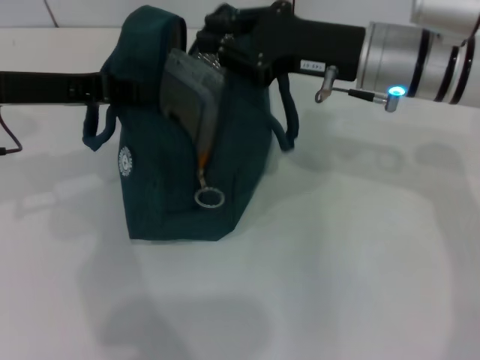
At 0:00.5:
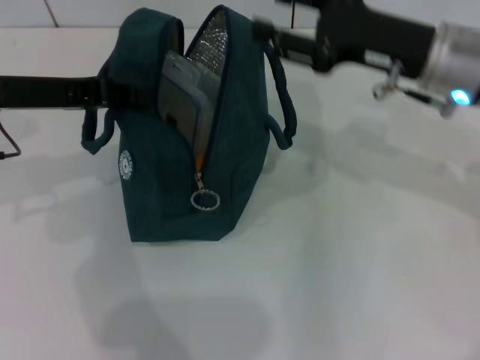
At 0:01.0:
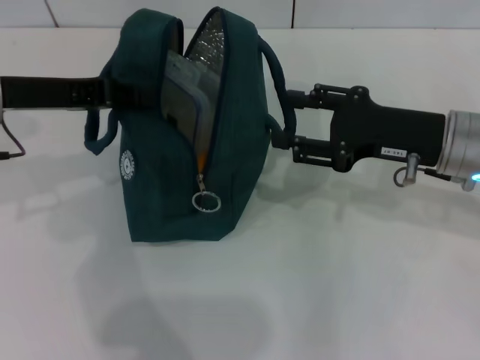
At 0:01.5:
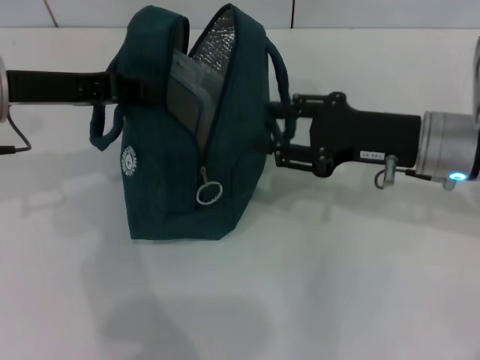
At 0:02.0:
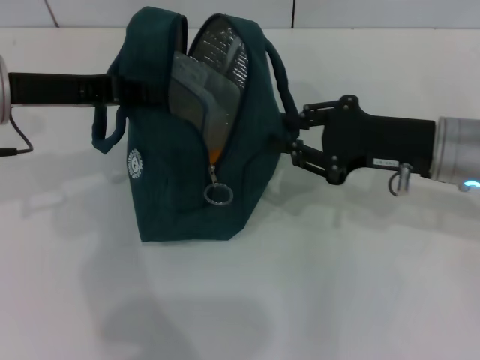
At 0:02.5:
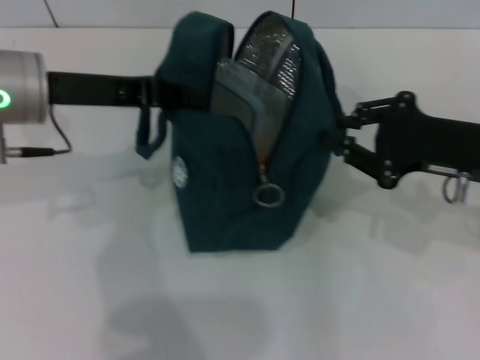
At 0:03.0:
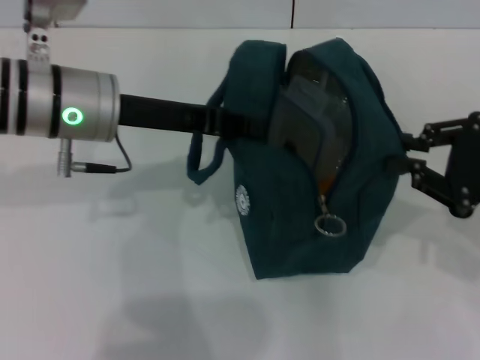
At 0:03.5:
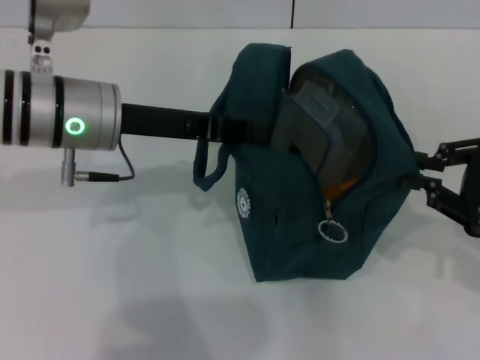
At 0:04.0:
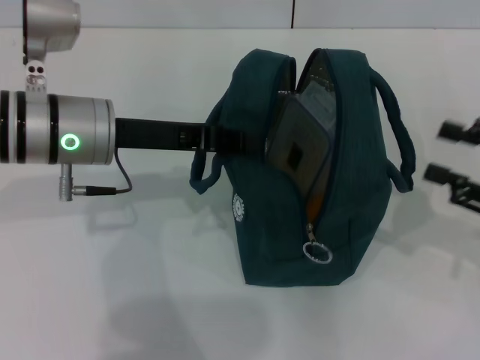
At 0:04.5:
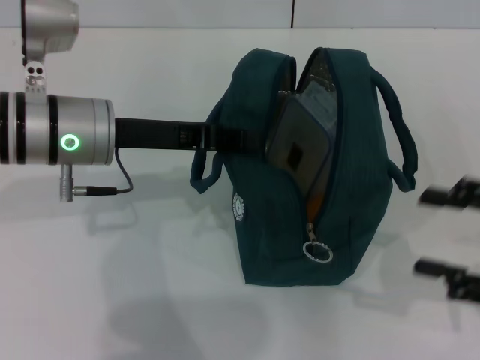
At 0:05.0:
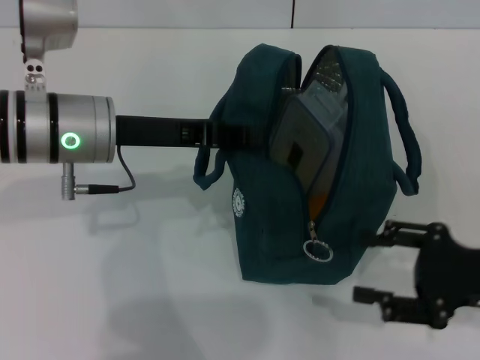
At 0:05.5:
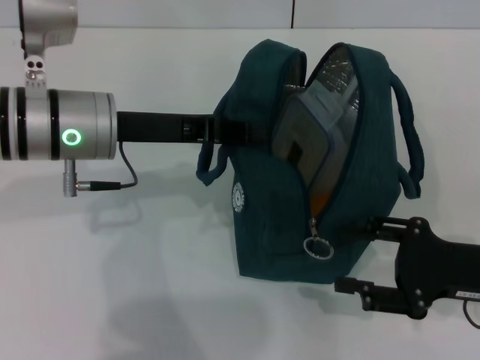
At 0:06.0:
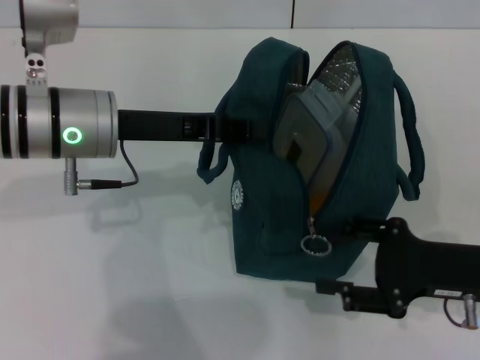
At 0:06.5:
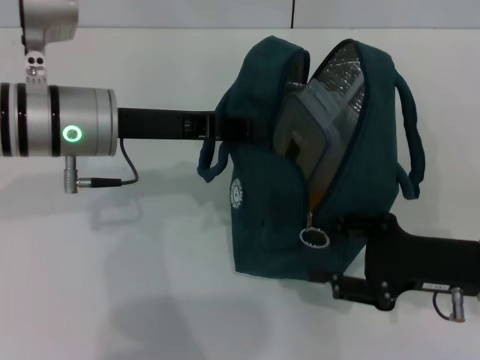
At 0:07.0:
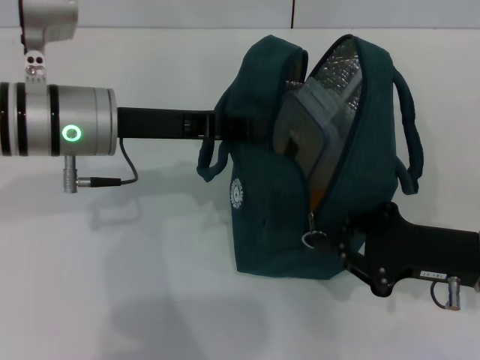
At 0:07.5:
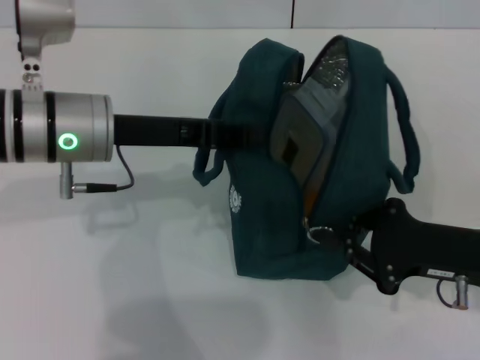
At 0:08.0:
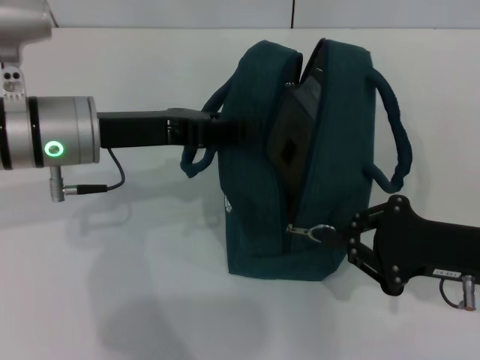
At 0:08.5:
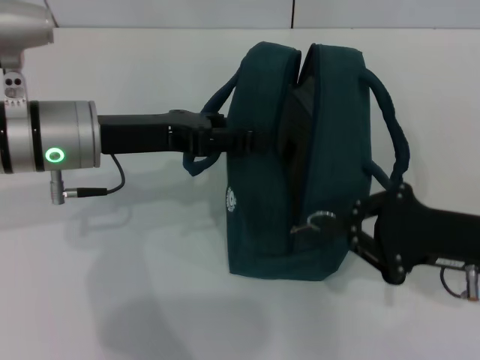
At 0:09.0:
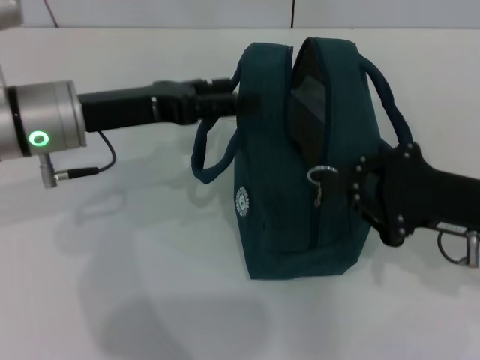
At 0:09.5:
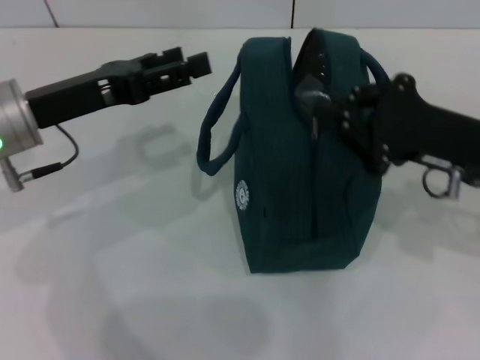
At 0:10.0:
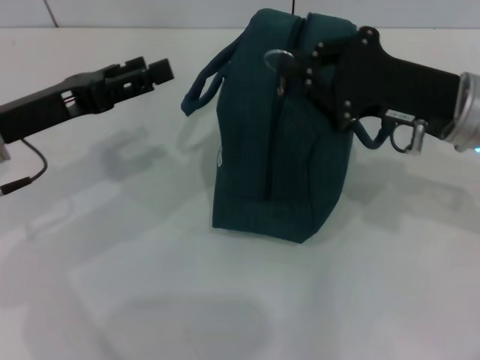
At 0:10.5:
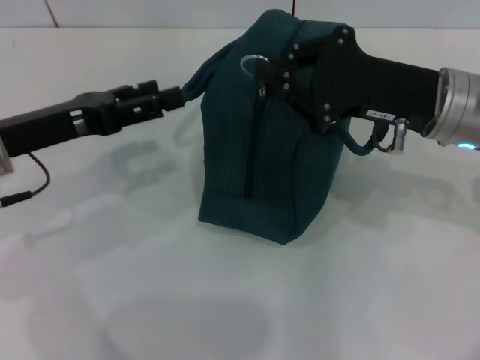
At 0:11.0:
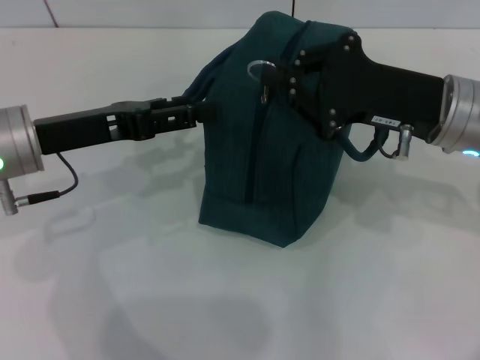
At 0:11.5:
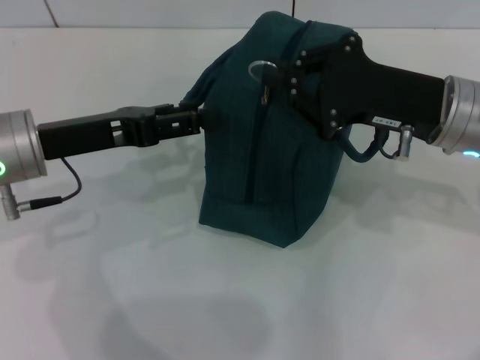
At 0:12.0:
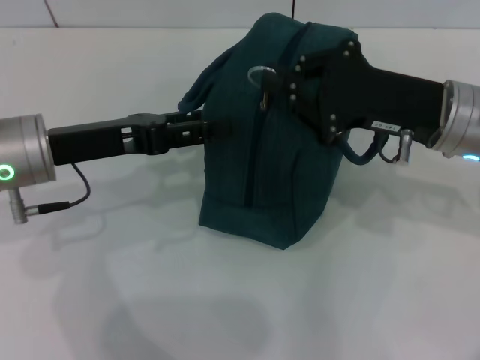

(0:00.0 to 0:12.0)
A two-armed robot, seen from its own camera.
Step, 0:00.5 - 0:04.0: Hold the lunch bag with your right hand.
Step, 0:04.5 - 0:08.5: Hold the lunch bag with your left hand.
0:00.0 - 0:02.0: The right gripper goes some 10 cm to the right and backward, and opens, then closes once more.
0:02.0 - 0:04.0: The left gripper shifts some 5 cm to the right. The right gripper travels to the right and backward by approximately 15 cm.
0:04.0 - 0:06.0: The right gripper goes some 10 cm to the left and downward, and opens.
0:06.0 - 0:08.0: The right gripper closes up.
0:08.0 - 0:10.0: The right gripper goes approximately 10 cm forward and upward; the left gripper travels to the left by approximately 5 cm, and opens its fingers.
0:10.0 - 0:12.0: The grippers move only a little.

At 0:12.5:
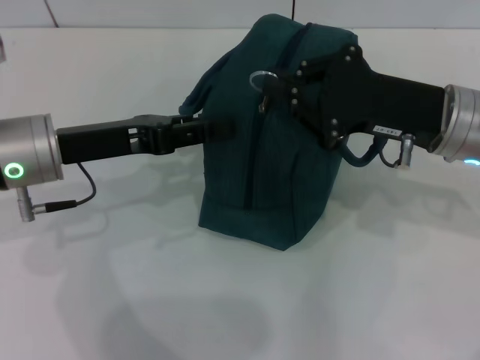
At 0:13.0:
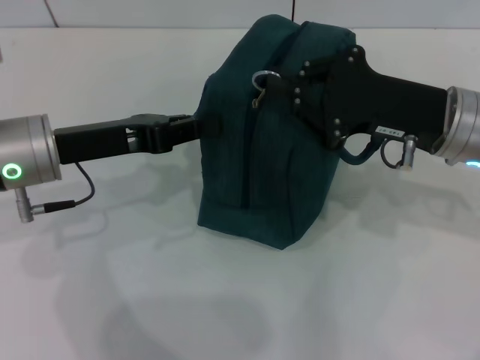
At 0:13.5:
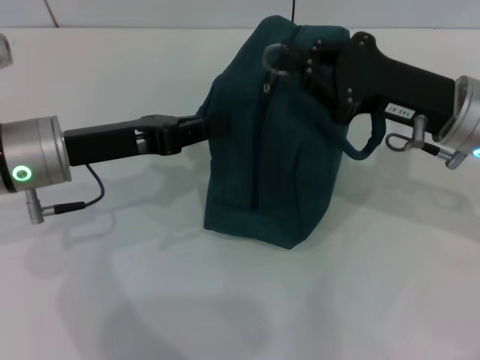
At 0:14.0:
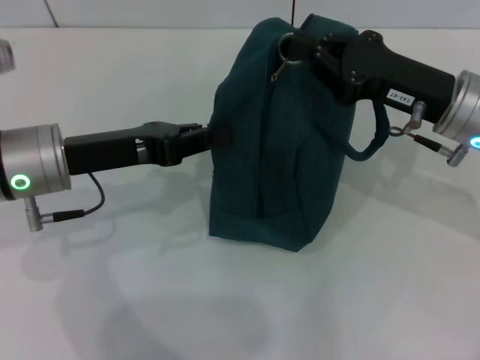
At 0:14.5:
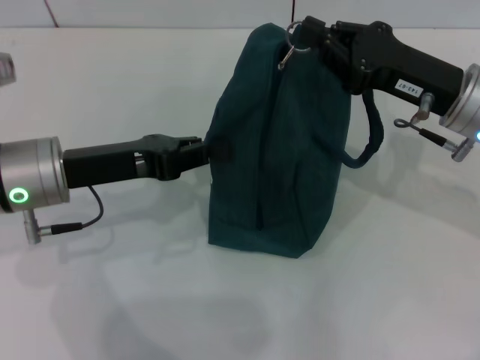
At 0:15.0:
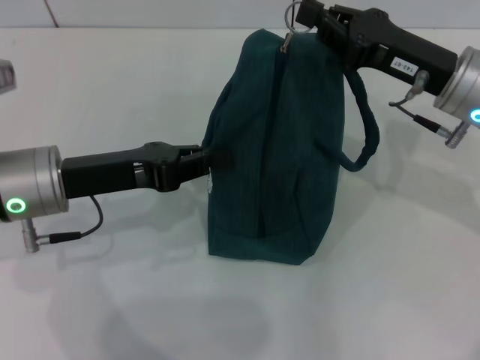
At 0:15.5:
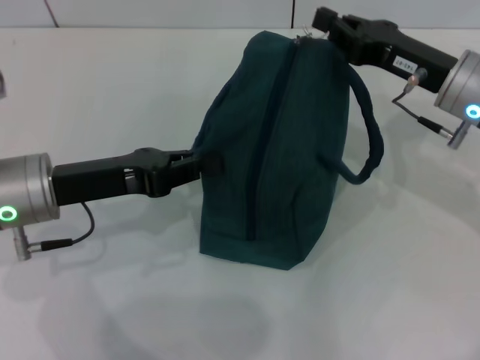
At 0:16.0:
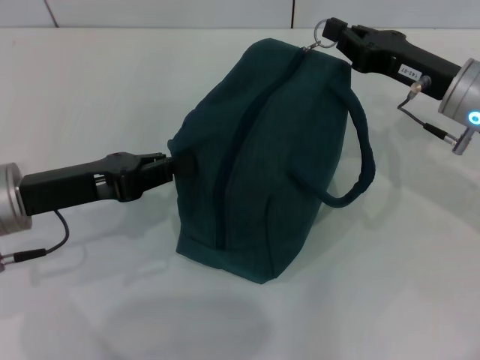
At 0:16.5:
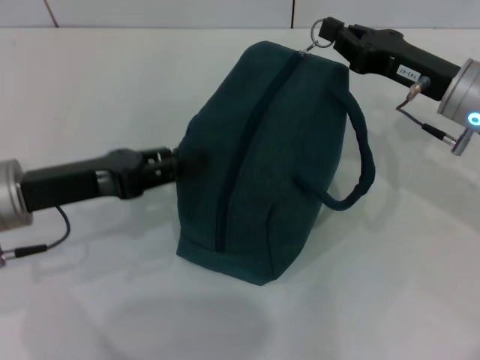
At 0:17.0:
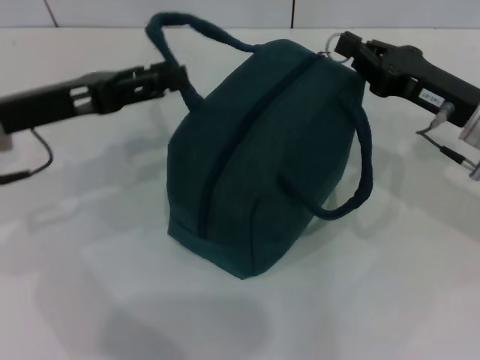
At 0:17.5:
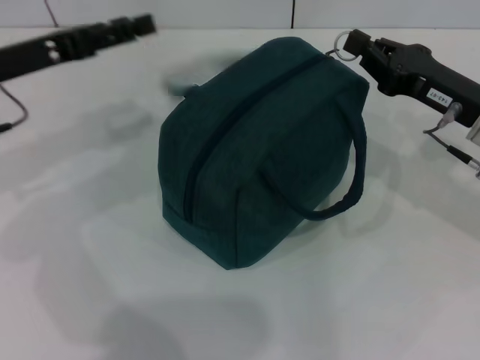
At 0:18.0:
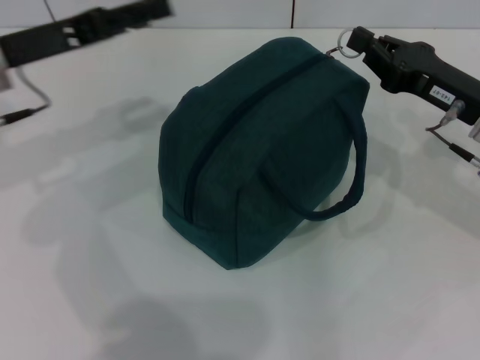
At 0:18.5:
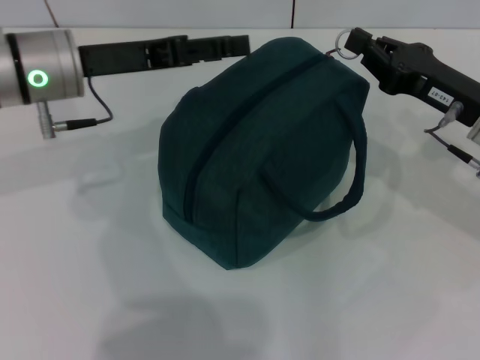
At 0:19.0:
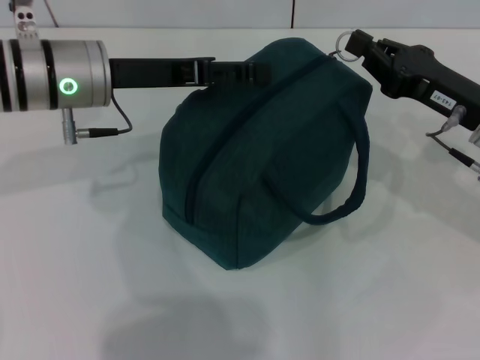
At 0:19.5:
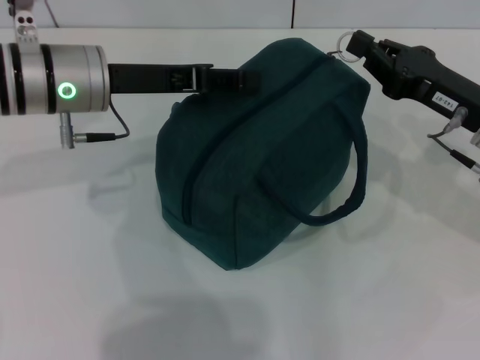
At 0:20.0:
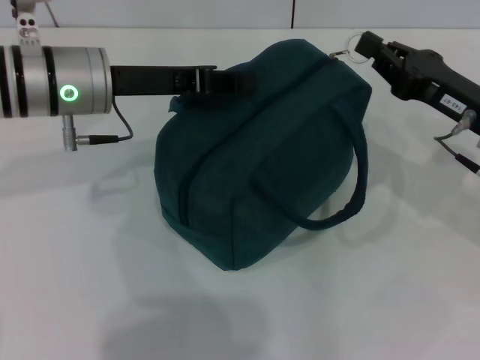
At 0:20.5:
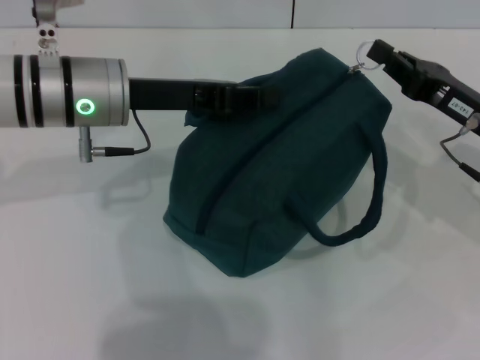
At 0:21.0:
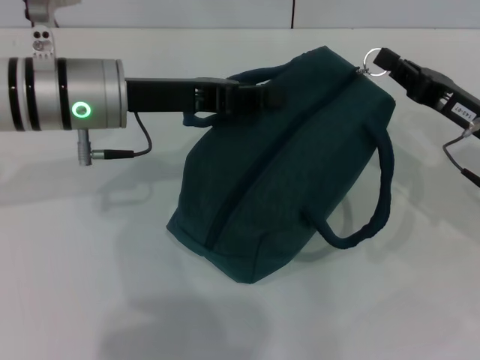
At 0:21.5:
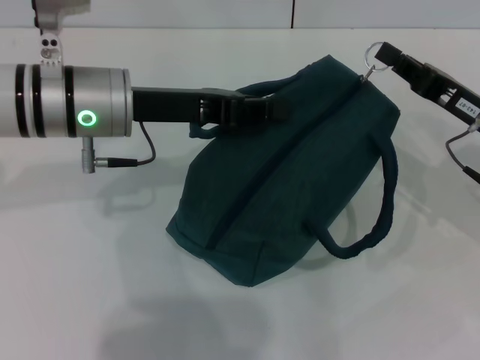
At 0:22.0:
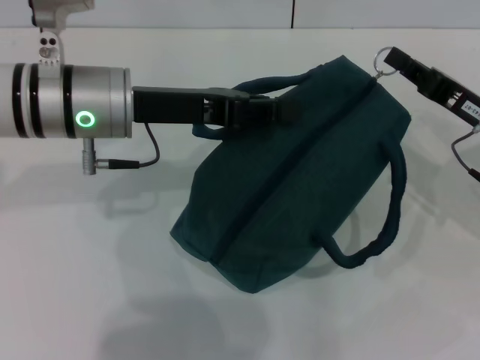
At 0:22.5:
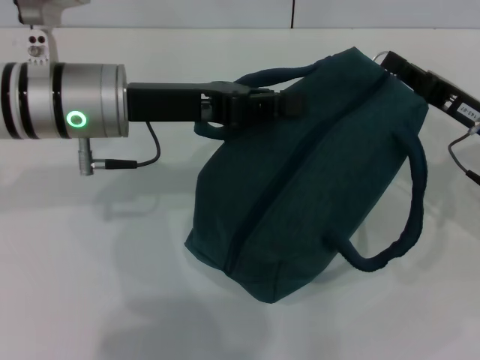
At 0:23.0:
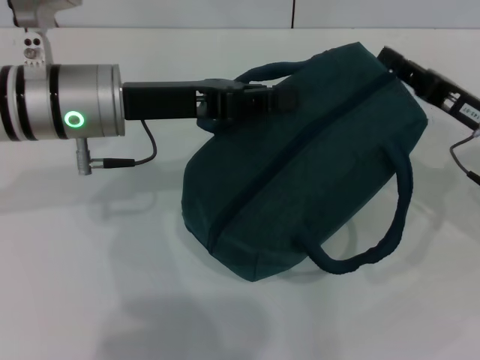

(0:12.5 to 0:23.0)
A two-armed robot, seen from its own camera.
0:12.5 - 0:14.5: The left gripper closes up.
0:14.5 - 0:16.5: There are only small adjustments of the grippers.
0:16.5 - 0:19.0: The left gripper goes some 10 cm forward and to the right, and opens its fingers.
0:19.0 - 0:21.0: The left gripper closes up.
0:21.0 - 0:23.0: The grippers move only a little.

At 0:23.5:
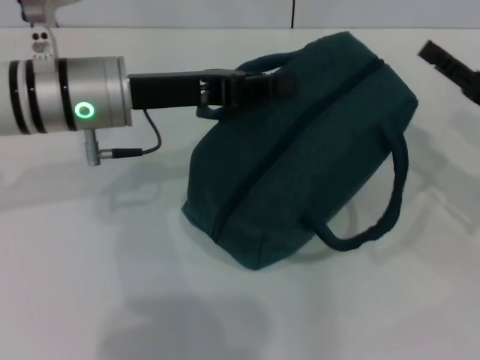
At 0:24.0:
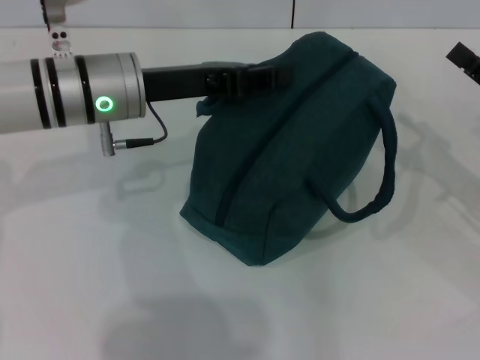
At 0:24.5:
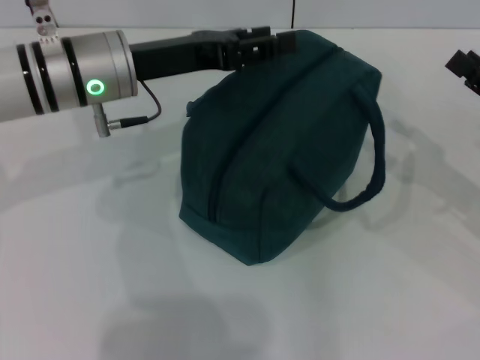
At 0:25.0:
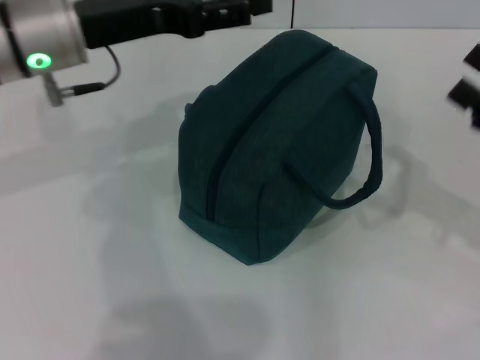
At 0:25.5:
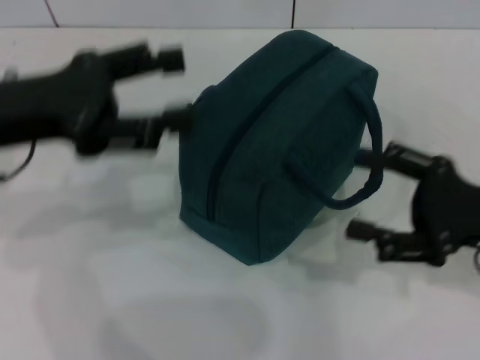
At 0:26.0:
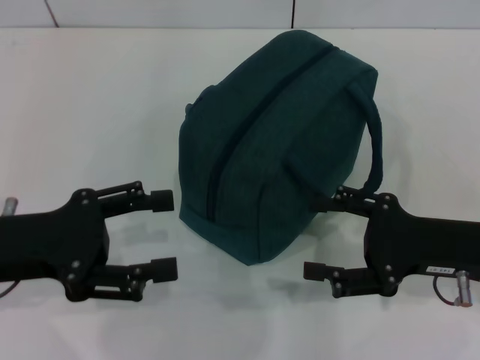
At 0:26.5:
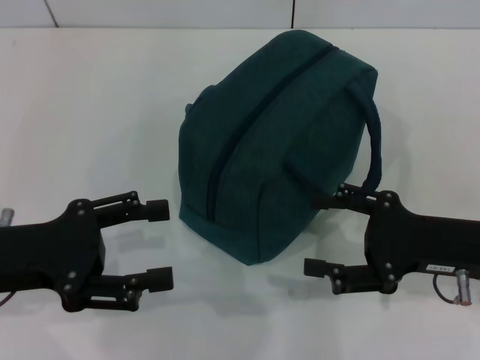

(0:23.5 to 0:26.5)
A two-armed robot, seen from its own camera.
Step, 0:23.5 - 0:24.0: Hold the lunch bag with your left hand.
0:23.5 - 0:25.0: The right gripper changes place by roughly 5 cm, and opens up. Meanwhile the left gripper opens.
0:25.0 - 0:26.5: The right gripper shifts some 10 cm to the left. The left gripper moves backward, to the left and downward, about 20 cm.
